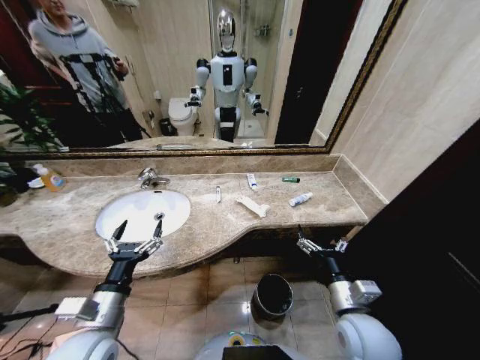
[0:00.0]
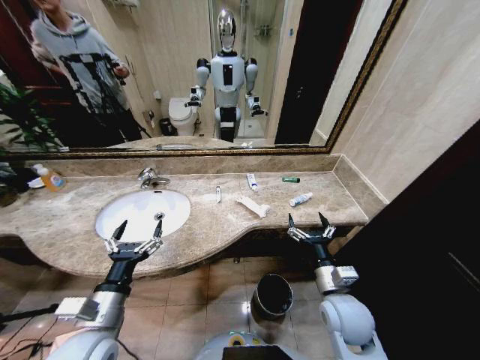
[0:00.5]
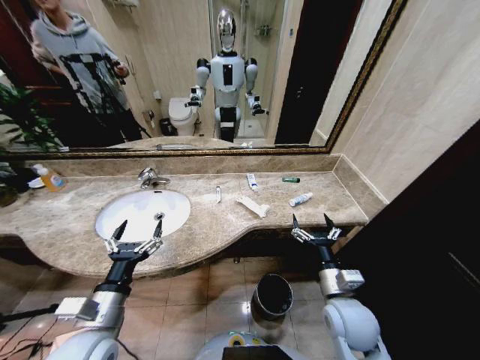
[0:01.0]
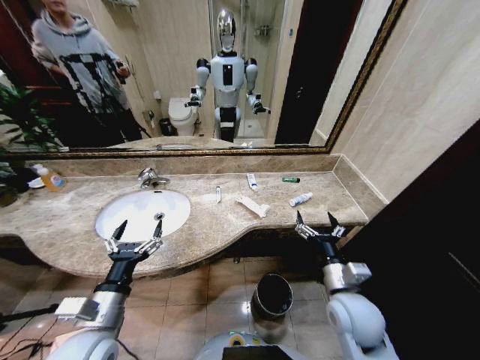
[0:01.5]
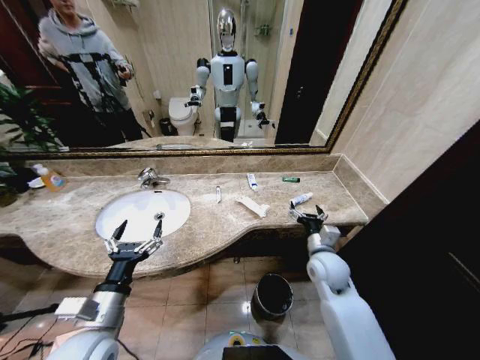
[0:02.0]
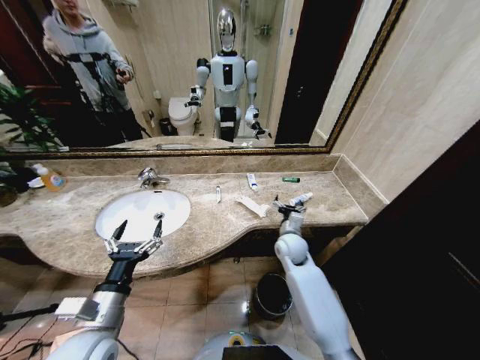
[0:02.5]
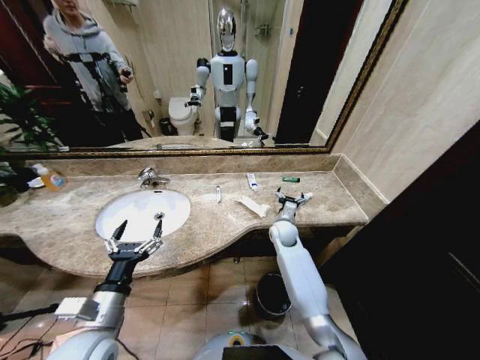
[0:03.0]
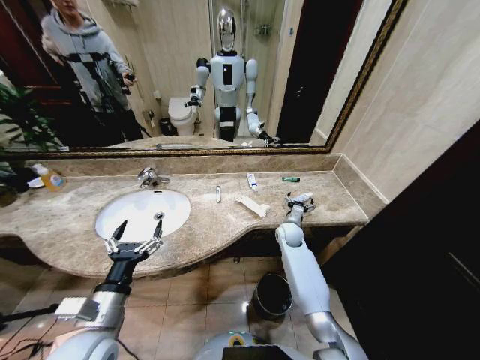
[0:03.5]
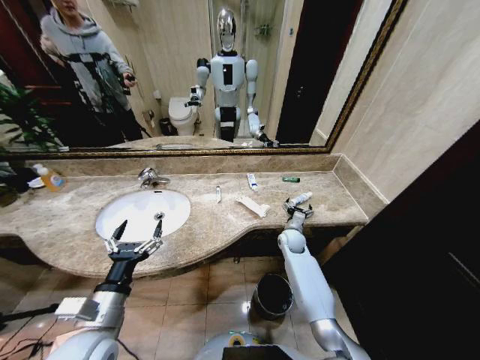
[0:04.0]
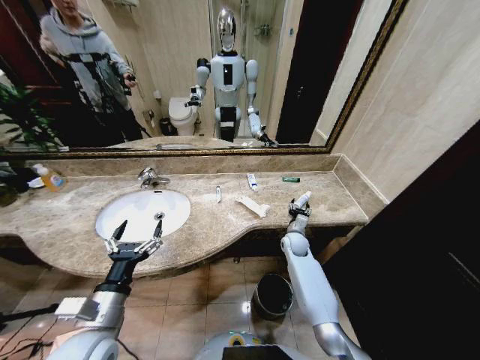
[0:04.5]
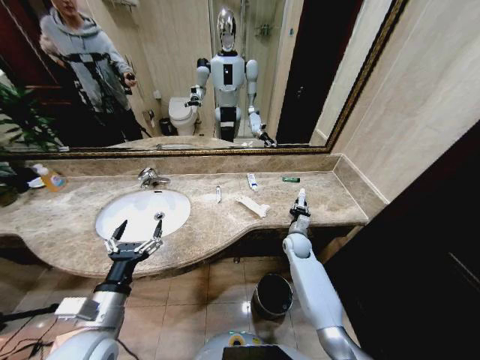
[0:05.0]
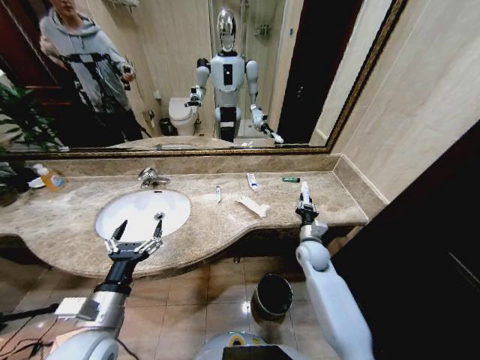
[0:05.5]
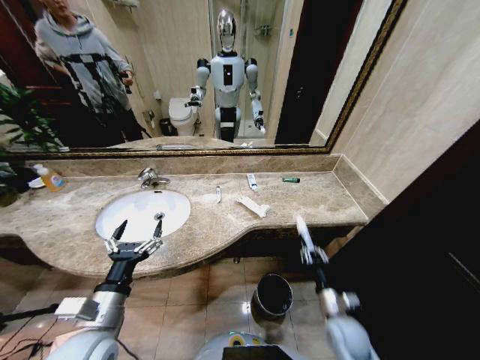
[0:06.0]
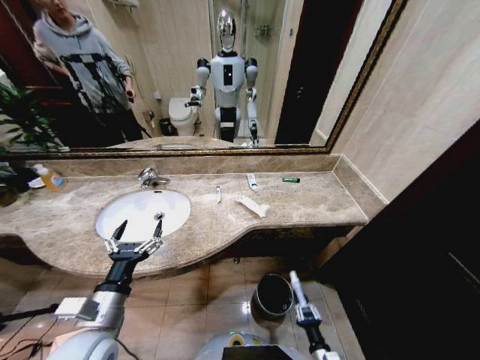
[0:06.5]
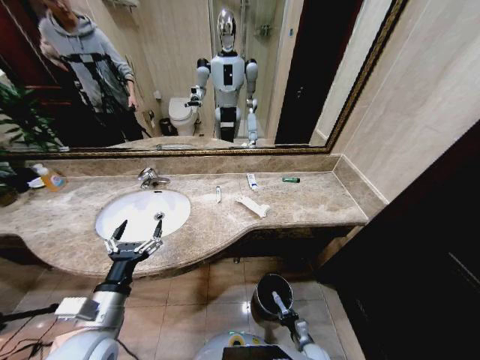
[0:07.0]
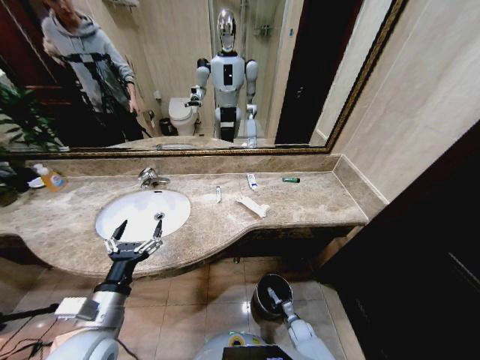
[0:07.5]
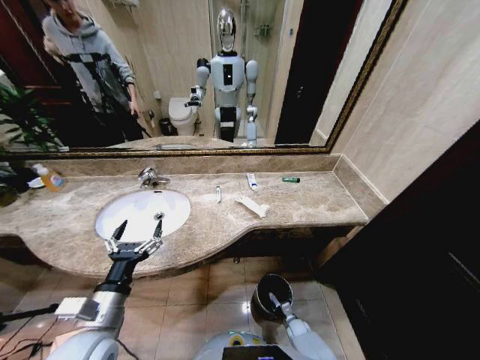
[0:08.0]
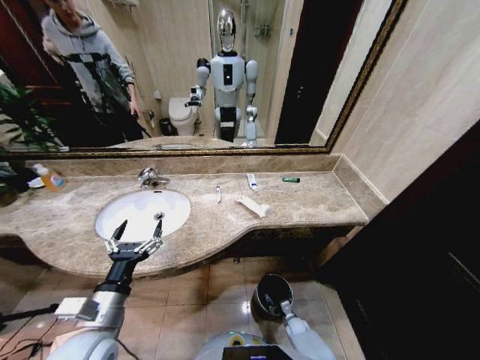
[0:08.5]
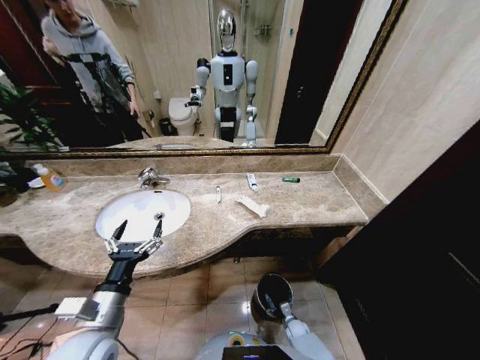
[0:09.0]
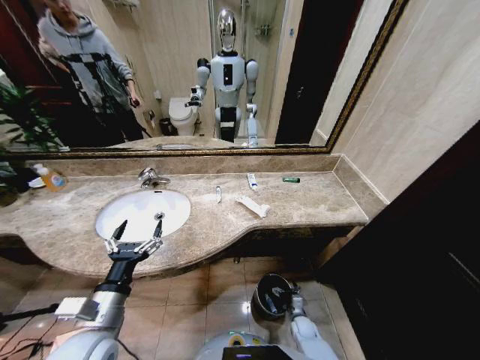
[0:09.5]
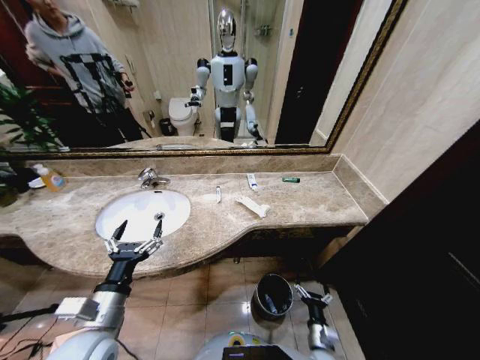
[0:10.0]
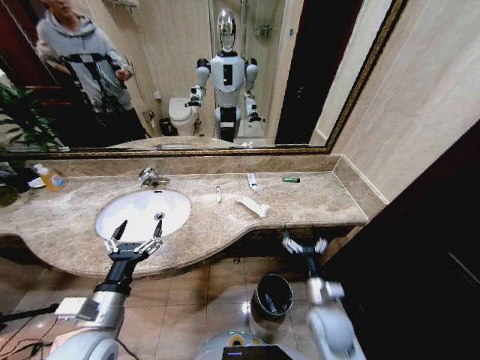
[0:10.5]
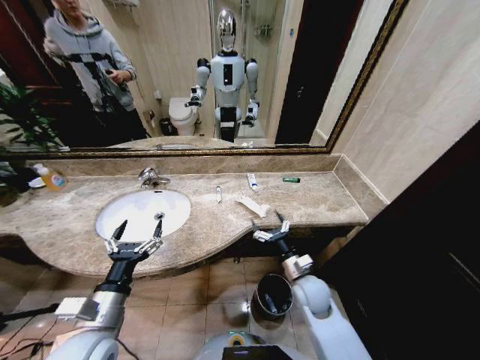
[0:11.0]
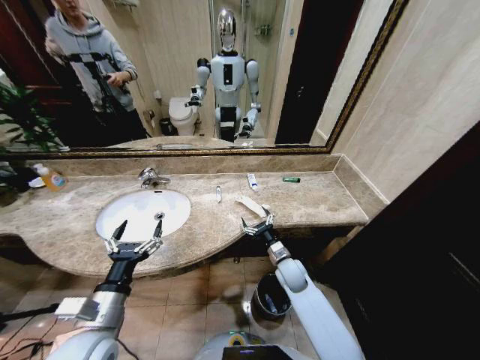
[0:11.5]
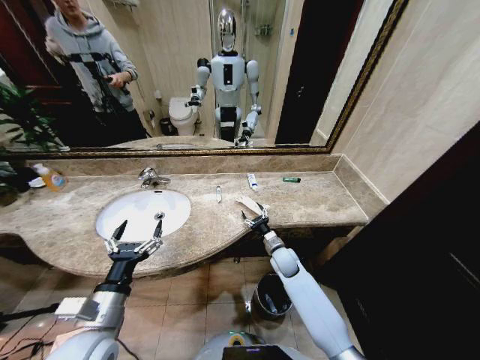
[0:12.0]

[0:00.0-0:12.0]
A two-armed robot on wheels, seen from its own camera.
Task of the whole recording: Pick up the trash from the sink and place it in the trash bin.
0:02.0 to 0:04.0: The right gripper travels forward and downward by roughly 20 cm.
0:04.0 to 0:06.0: The right gripper shifts about 30 cm backward, and closes its fingers.
0:06.0 to 0:08.0: The right gripper moves downward, roughly 30 cm.
0:08.0 to 0:10.0: The right gripper goes approximately 20 cm upward and backward, and opens.
0:10.0 to 0:12.0: The right gripper shifts approximately 30 cm forward and upward.

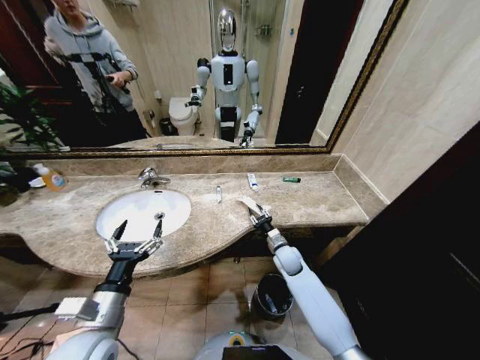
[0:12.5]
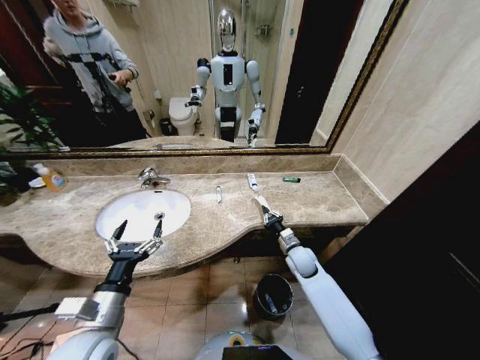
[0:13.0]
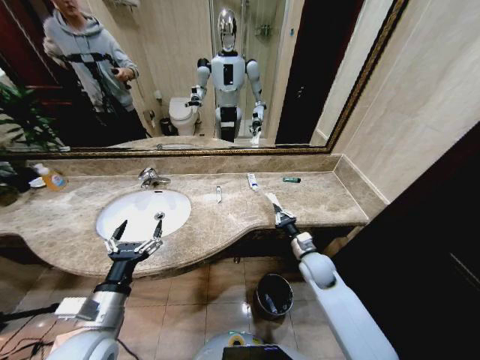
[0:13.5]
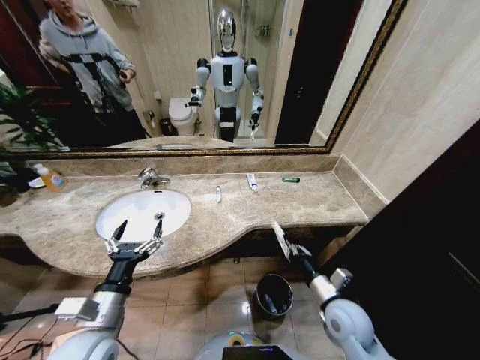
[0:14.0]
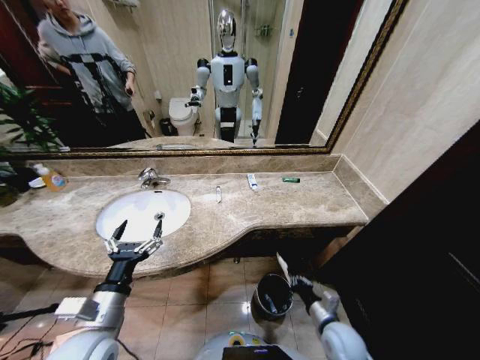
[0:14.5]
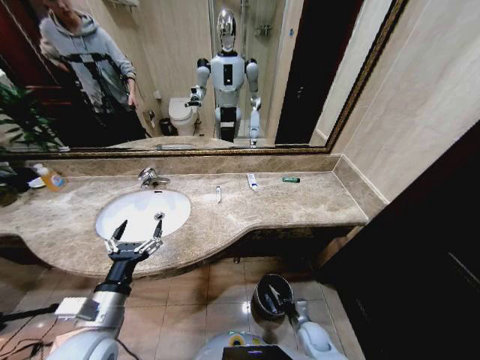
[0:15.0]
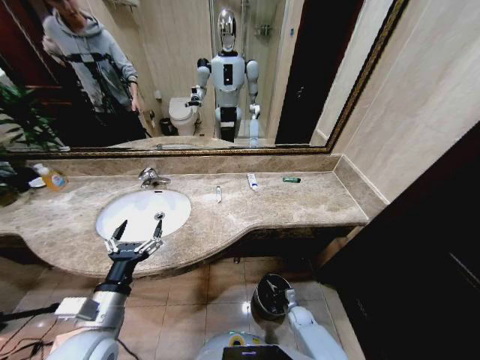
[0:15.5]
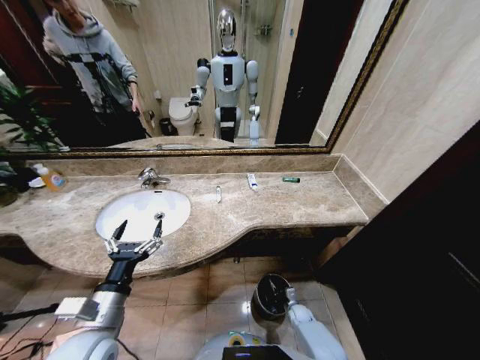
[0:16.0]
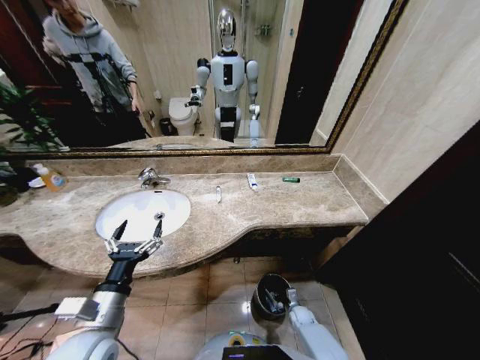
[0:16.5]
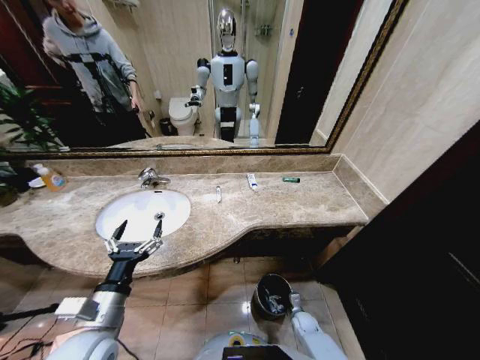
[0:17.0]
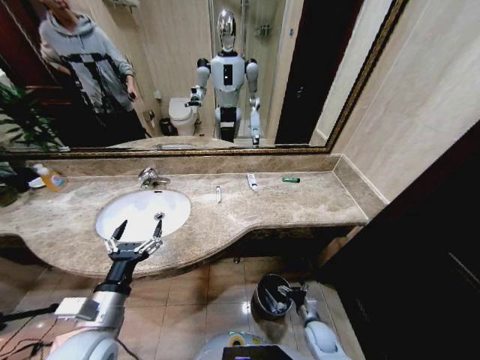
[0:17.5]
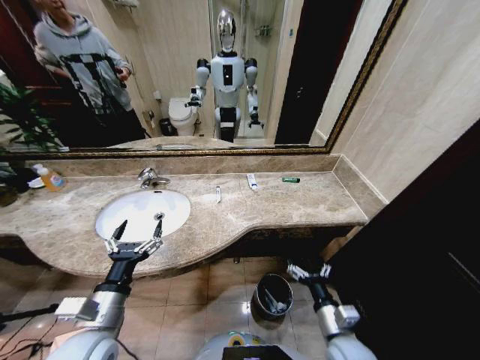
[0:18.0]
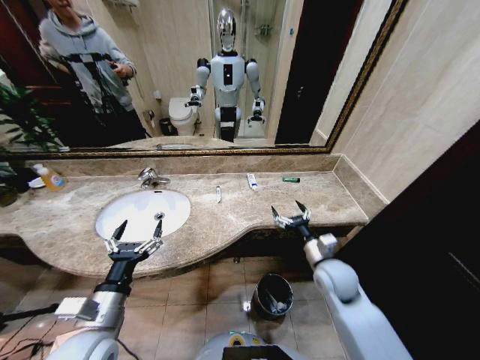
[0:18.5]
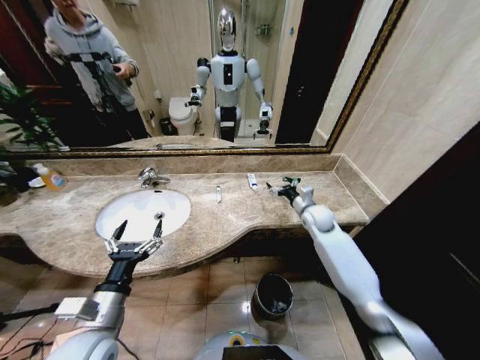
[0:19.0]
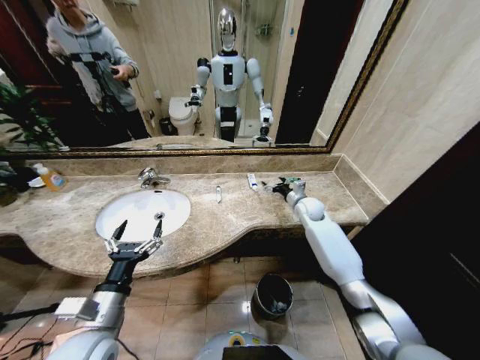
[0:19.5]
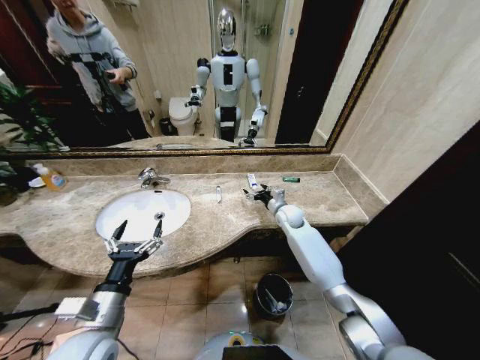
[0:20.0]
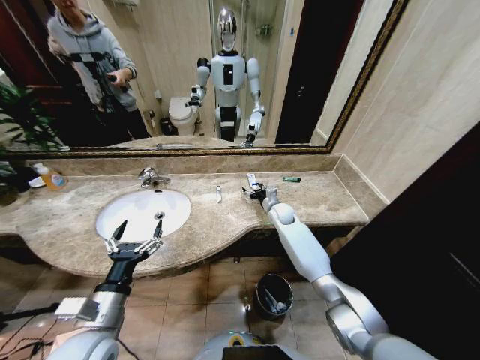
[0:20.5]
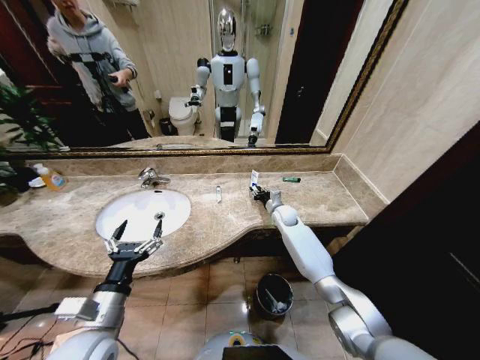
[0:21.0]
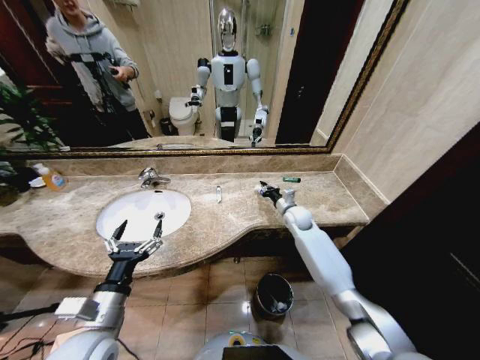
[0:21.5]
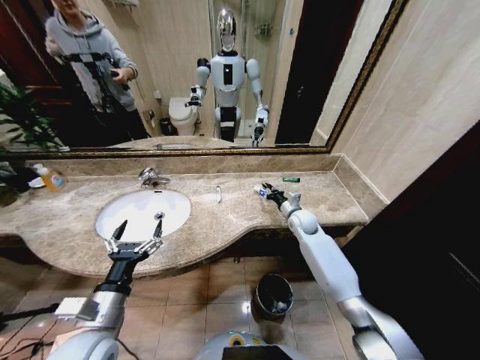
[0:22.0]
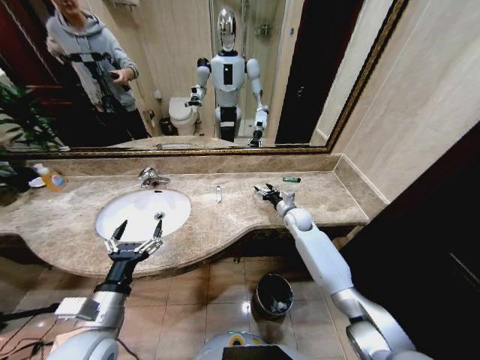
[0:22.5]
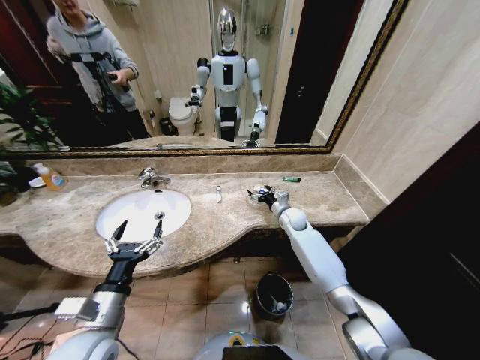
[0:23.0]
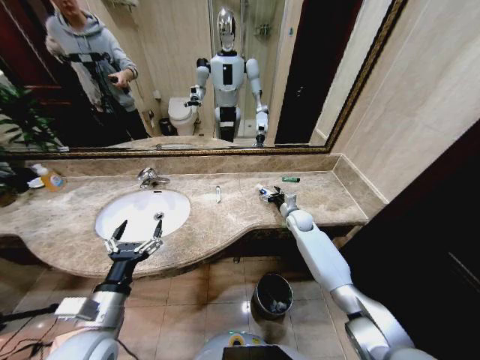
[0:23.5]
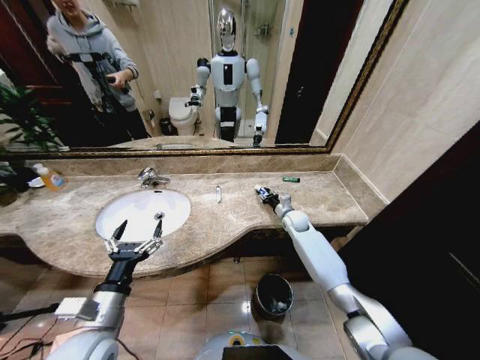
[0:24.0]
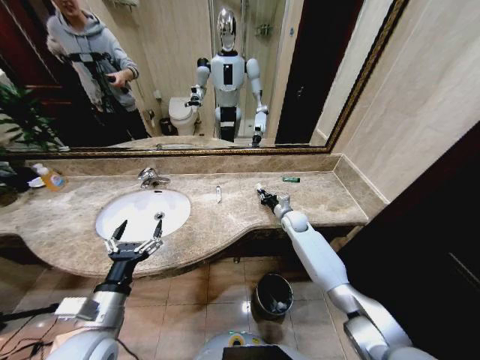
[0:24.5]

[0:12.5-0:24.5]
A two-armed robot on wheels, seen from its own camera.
Task of the whole recording: Pick up the trash from the sink and place it in the trash bin.
0:12.5 to 0:14.5: The right gripper heads backward and to the right, covering roughly 25 cm, and closes up.
0:14.5 to 0:16.5: The right gripper is displaced downward by about 25 cm, and opens its fingers.
0:16.5 to 0:18.5: The right gripper is displaced upward by some 35 cm, and opens its fingers.
0:18.5 to 0:20.5: The right gripper is displaced forward by approximately 25 cm.
0:20.5 to 0:22.5: The right gripper moves to the right, approximately 5 cm, and closes, then reopens.
0:22.5 to 0:24.5: The right gripper closes up.

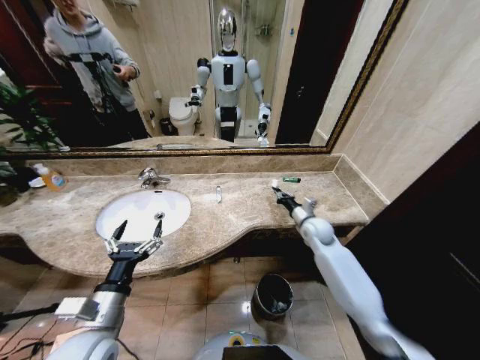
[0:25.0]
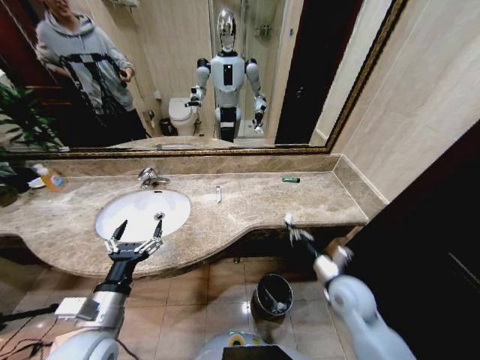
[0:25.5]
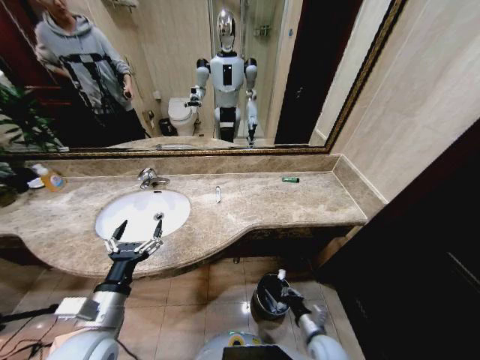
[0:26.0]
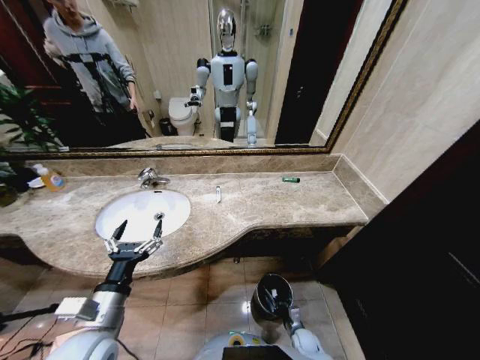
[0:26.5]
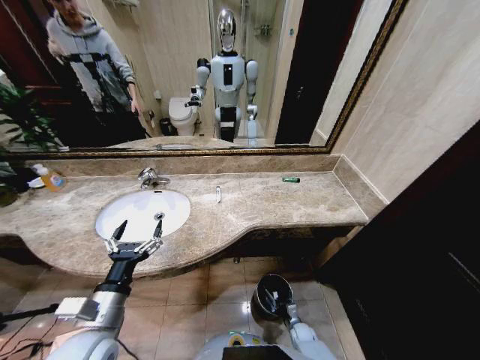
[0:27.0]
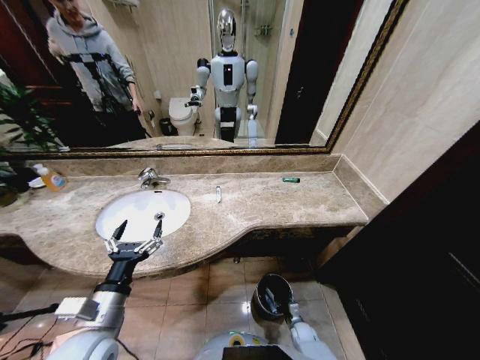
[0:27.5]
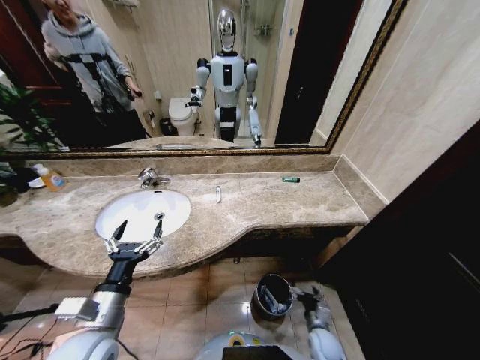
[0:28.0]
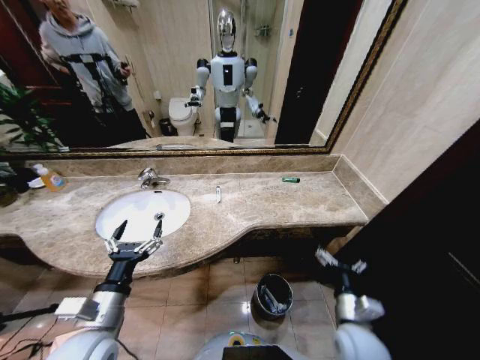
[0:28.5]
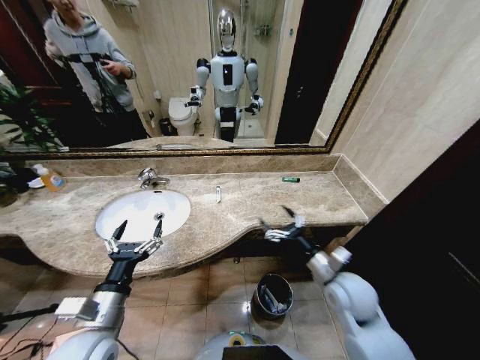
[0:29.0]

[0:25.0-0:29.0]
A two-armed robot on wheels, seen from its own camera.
Task of the whole recording: Pick up the trash from the sink and place it in the trash bin.
0:25.0 to 0:27.0: The right gripper heads downward and backward, covering approximately 50 cm.
0:27.0 to 0:29.0: The right gripper heads upward, covering some 40 cm, and opens up.
